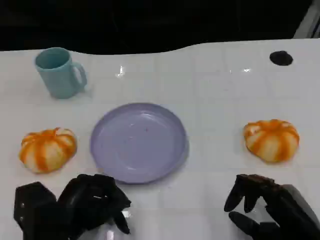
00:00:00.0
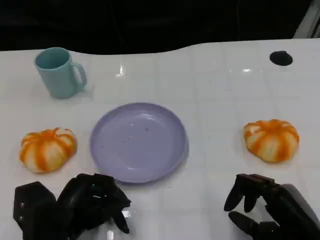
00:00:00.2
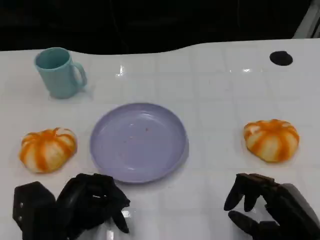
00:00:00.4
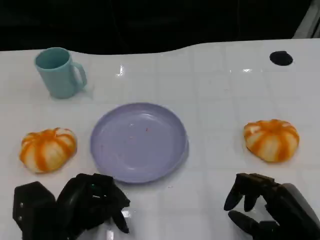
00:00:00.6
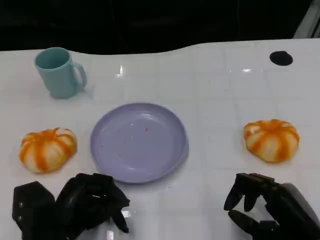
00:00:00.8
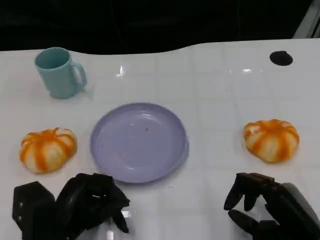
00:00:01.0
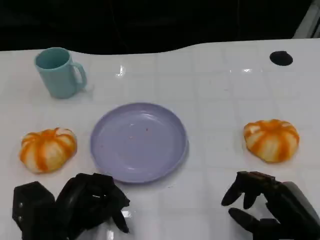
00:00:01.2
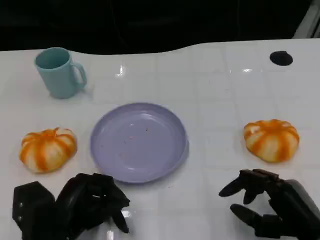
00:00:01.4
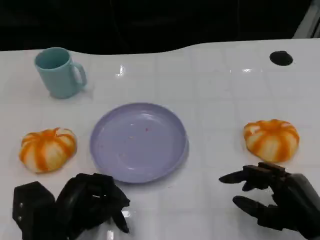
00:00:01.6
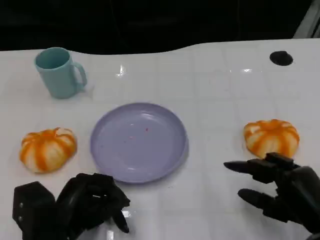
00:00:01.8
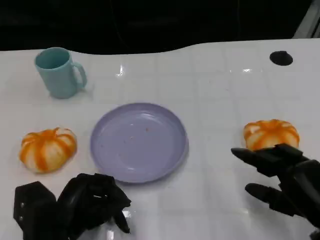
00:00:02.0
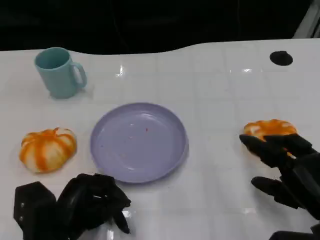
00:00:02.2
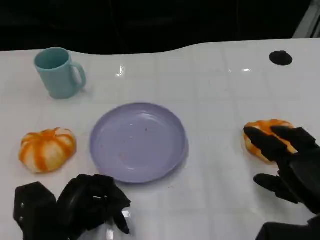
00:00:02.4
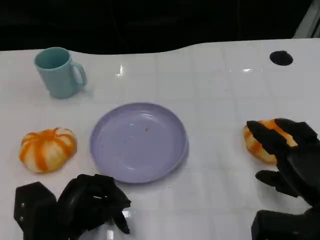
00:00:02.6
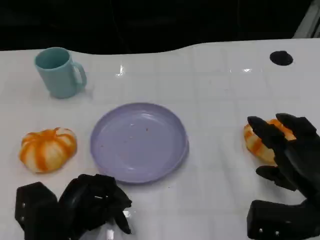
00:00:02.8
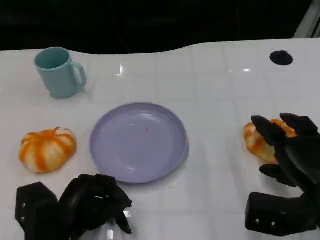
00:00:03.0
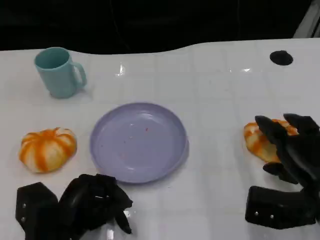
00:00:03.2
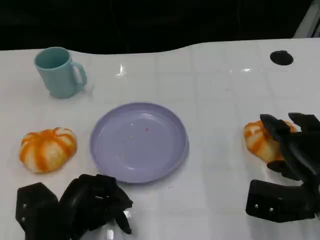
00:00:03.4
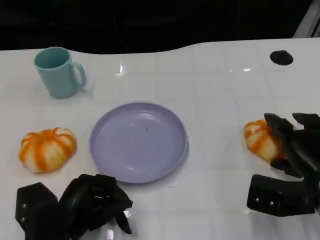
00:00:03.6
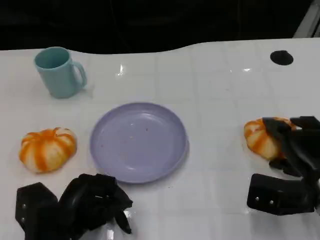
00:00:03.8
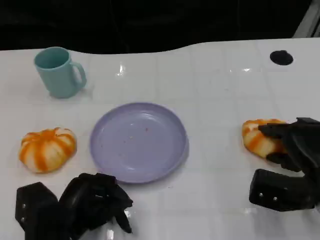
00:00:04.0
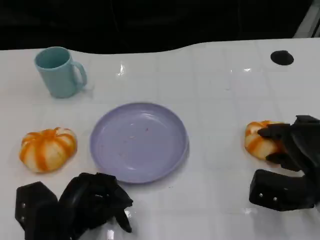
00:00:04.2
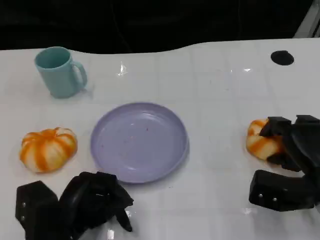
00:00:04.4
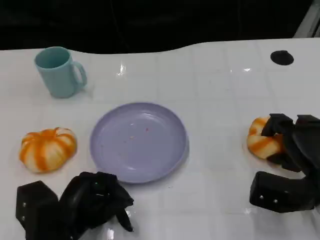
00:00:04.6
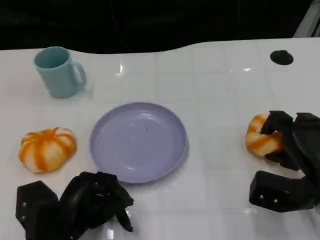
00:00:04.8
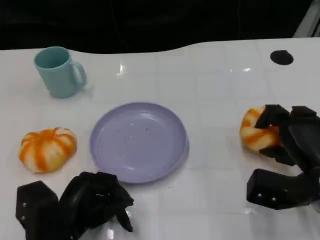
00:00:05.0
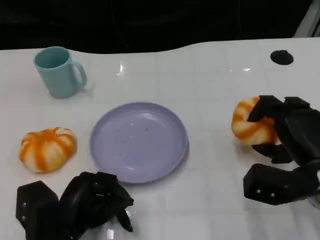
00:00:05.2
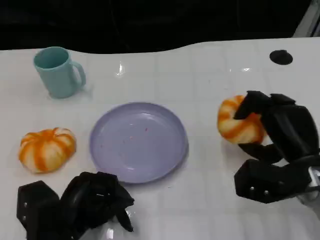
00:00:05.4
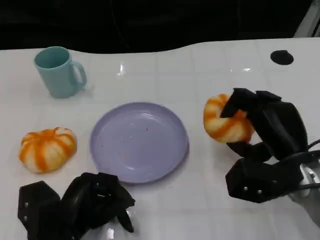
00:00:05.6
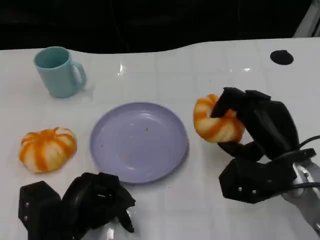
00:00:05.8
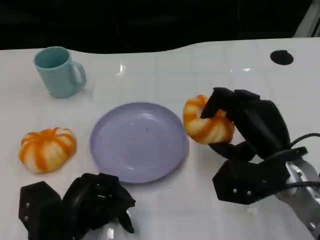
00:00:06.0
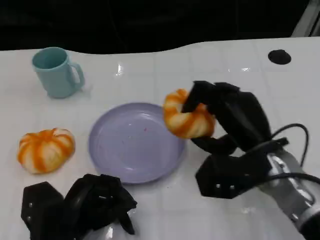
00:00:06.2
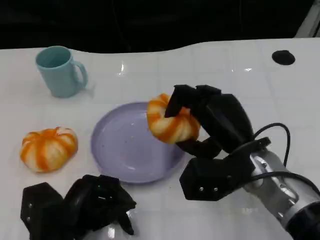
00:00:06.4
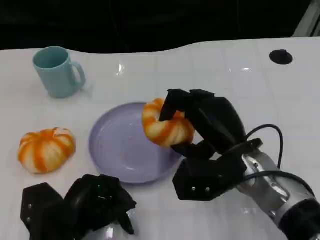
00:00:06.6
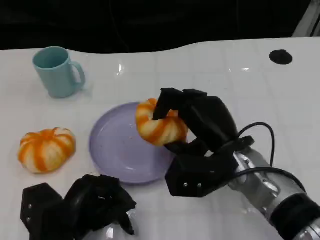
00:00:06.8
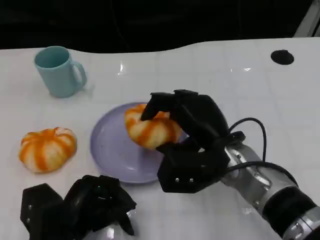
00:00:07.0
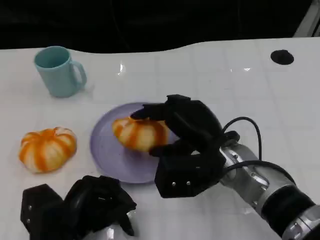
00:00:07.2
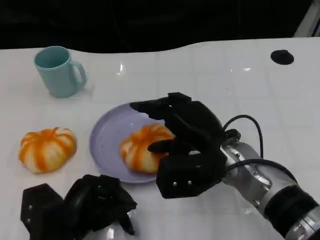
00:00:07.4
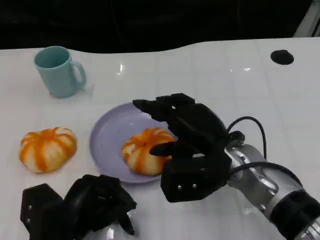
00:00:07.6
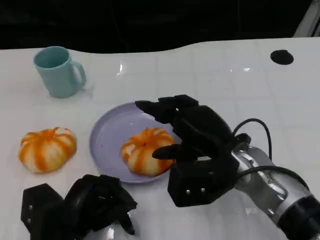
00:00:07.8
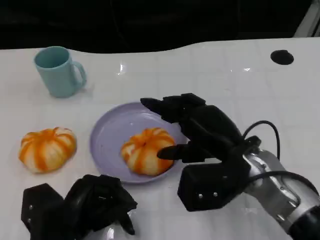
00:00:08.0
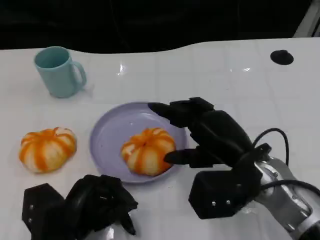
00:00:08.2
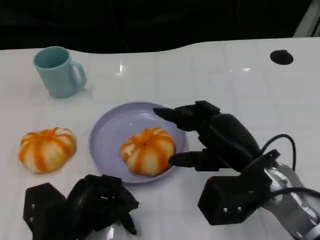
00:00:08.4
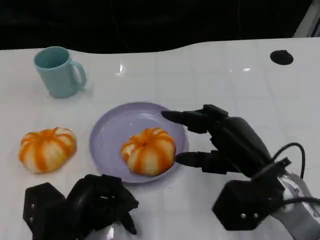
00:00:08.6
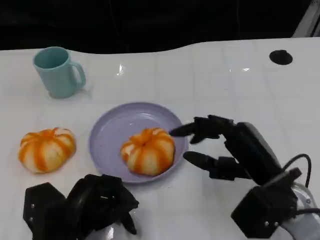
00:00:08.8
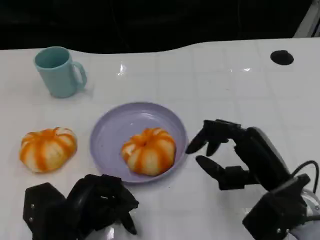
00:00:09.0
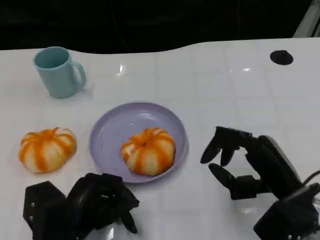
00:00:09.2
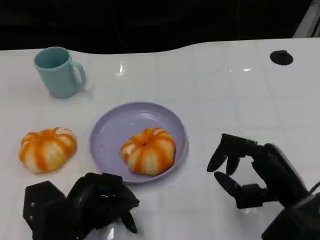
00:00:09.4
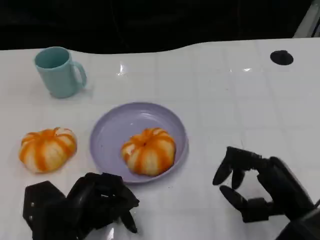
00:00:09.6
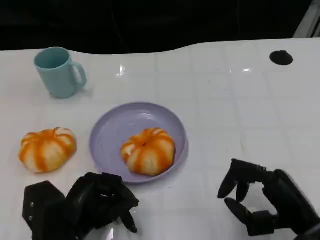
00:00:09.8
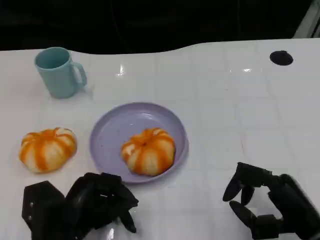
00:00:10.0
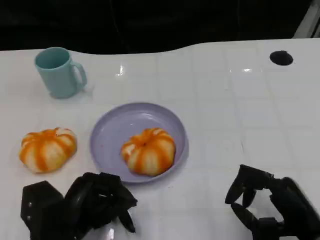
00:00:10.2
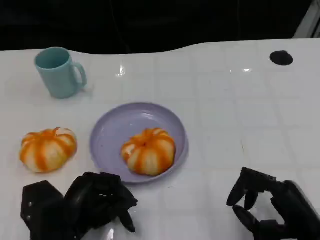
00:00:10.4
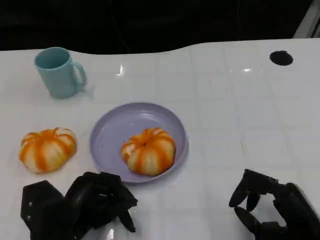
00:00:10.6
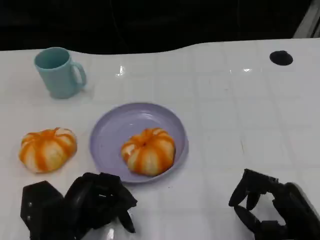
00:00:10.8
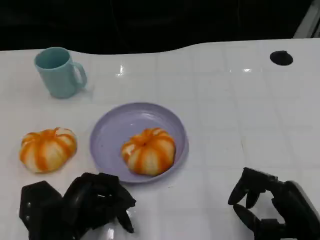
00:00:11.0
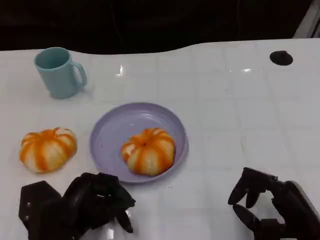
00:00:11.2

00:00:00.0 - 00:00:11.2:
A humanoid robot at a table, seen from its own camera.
Task of the whole recording: Grasp the bread from the table and place it into the plate.
00:00:00.0 - 00:00:01.6: There are only small adjustments of the hands.
00:00:01.6 - 00:00:03.2: The right hand shifts some 5 cm forward.
00:00:03.2 - 00:00:04.8: The hands stay close to where they were, moving slightly.
00:00:04.8 - 00:00:06.4: The right hand is displaced to the left and upward by approximately 15 cm.
00:00:06.4 - 00:00:08.0: The hands move only a little.
00:00:08.0 - 00:00:09.6: The right hand heads to the right, backward and downward, covering some 10 cm.
00:00:09.6 - 00:00:11.2: There are only small adjustments of the hands.

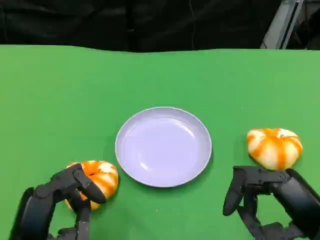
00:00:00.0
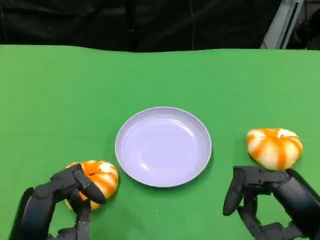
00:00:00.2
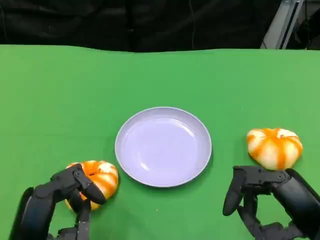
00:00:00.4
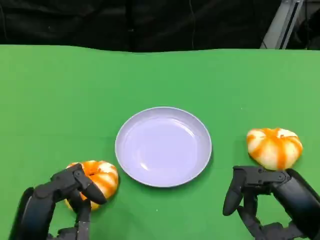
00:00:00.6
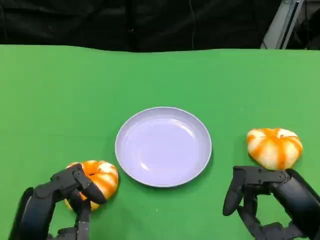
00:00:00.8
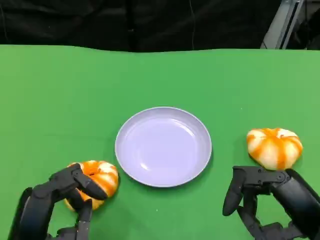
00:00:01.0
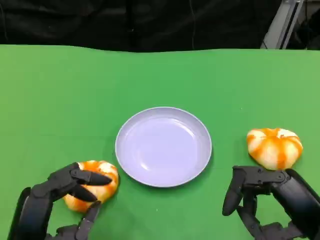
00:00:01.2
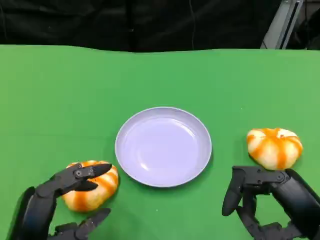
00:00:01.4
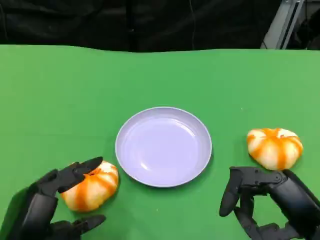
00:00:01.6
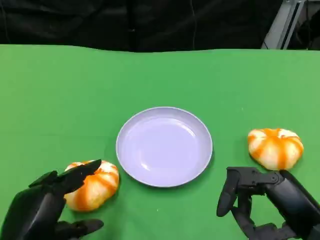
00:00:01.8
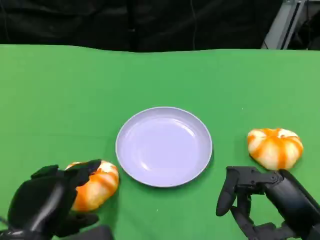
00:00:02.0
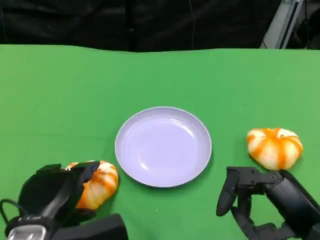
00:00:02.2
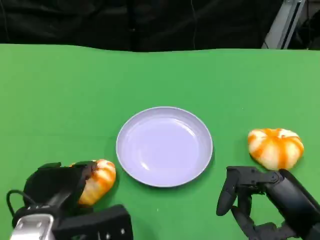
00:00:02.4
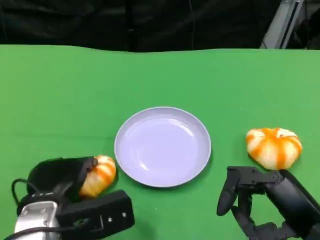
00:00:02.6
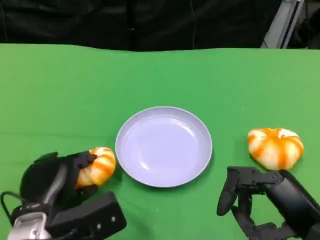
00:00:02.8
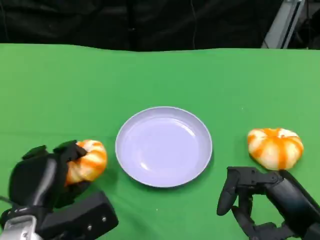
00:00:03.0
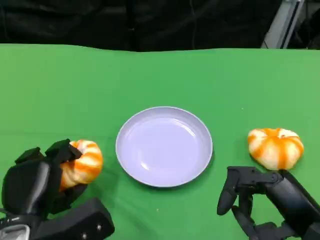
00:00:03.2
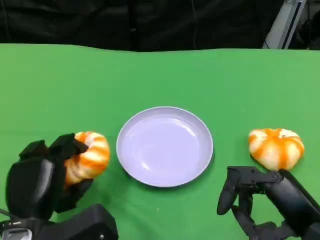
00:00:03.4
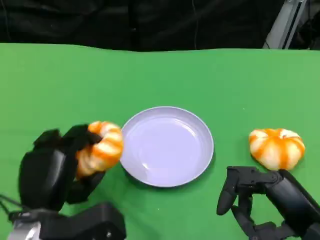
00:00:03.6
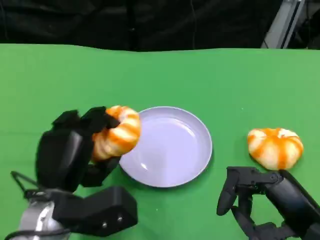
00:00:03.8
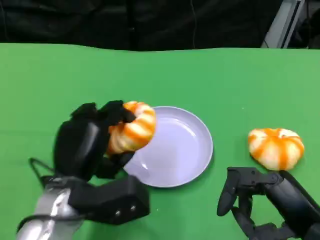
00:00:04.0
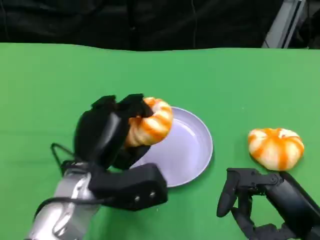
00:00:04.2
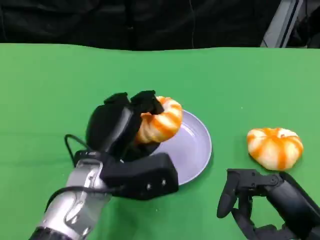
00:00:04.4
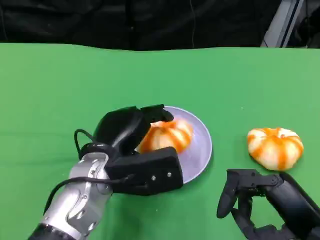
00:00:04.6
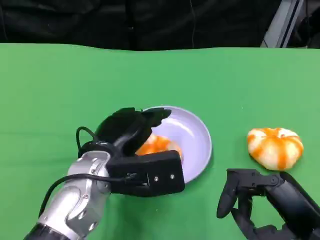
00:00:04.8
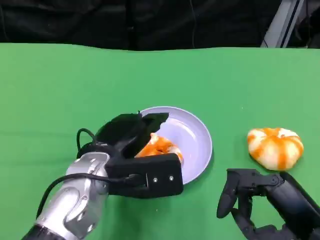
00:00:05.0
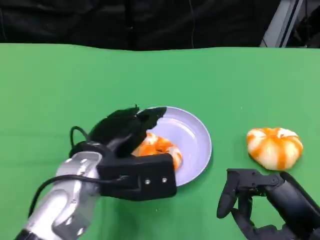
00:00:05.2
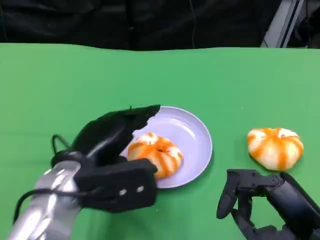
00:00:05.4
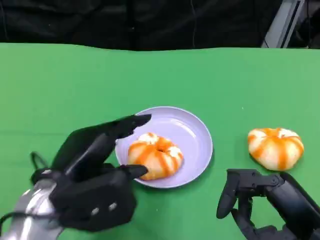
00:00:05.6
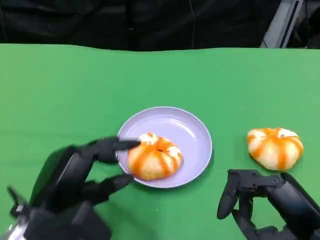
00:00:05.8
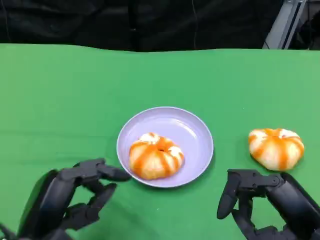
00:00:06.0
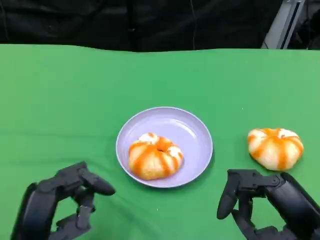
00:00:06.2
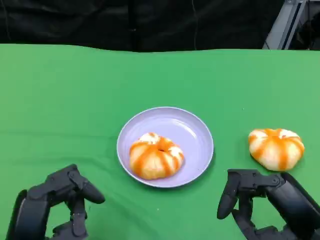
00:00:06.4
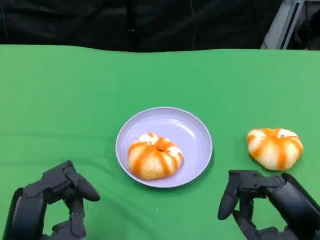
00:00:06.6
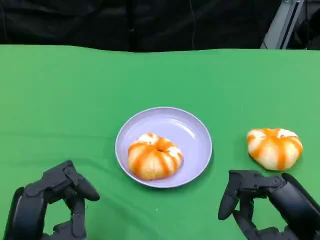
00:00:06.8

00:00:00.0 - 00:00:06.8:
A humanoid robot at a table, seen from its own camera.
Task of the whole recording: Grasp the bread from the table and place it into the plate.
00:00:00.0 - 00:00:01.4: There are only small adjustments of the hands.
00:00:01.4 - 00:00:02.8: The left hand shifts approximately 10 cm forward.
00:00:02.8 - 00:00:04.0: The left hand shifts by roughly 5 cm.
00:00:05.4 - 00:00:06.8: The left hand goes some 10 cm backward and to the left.

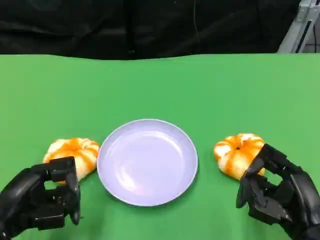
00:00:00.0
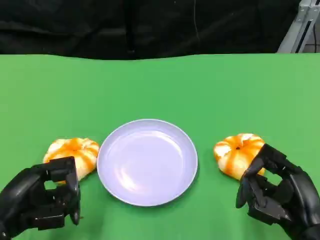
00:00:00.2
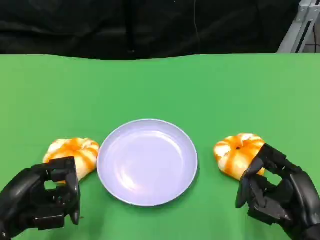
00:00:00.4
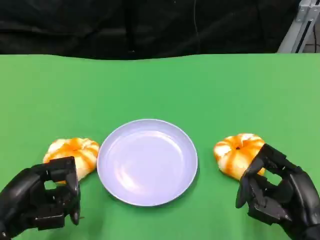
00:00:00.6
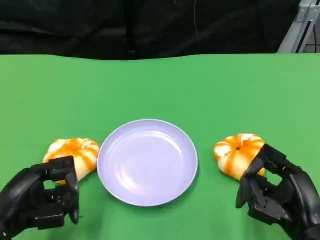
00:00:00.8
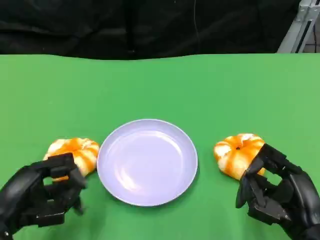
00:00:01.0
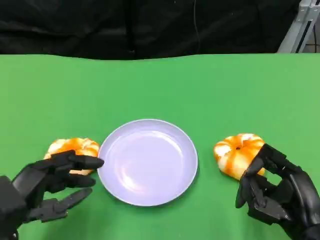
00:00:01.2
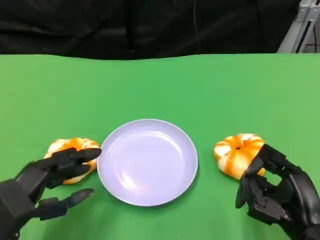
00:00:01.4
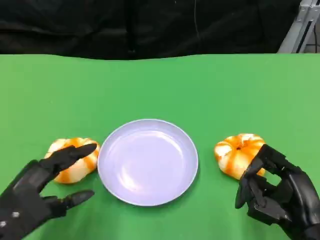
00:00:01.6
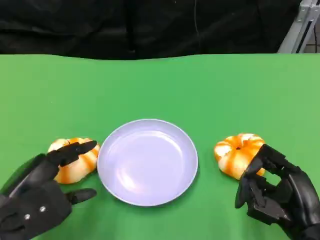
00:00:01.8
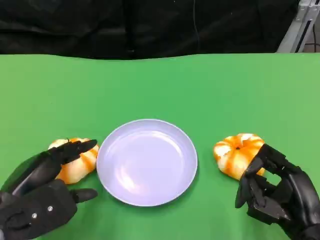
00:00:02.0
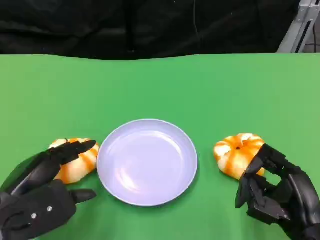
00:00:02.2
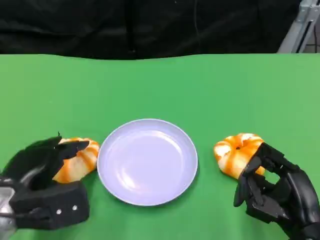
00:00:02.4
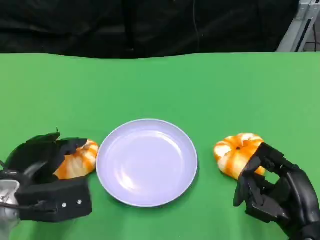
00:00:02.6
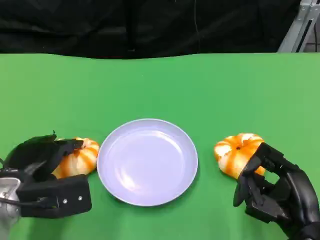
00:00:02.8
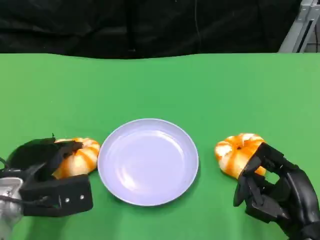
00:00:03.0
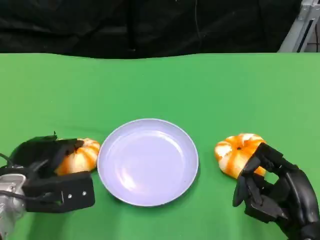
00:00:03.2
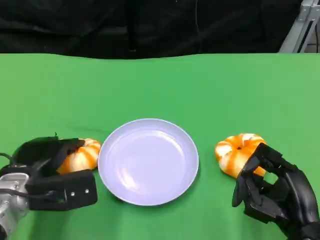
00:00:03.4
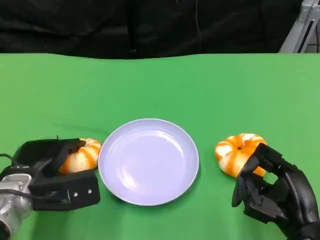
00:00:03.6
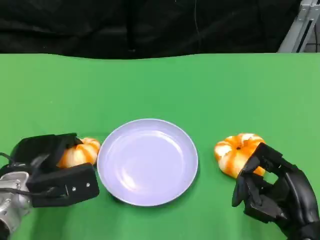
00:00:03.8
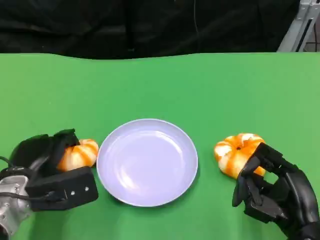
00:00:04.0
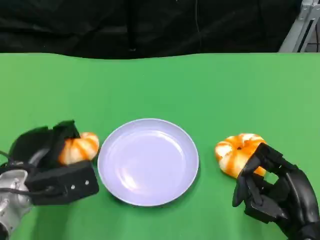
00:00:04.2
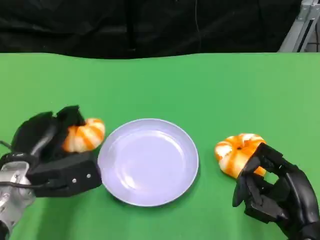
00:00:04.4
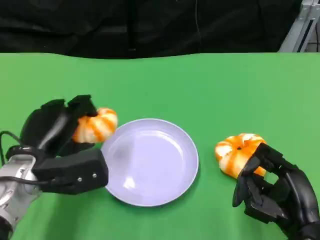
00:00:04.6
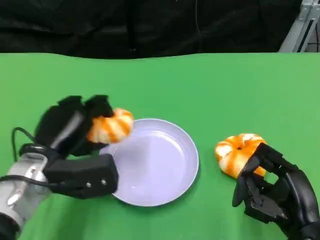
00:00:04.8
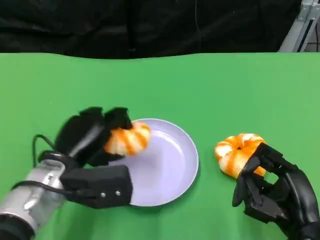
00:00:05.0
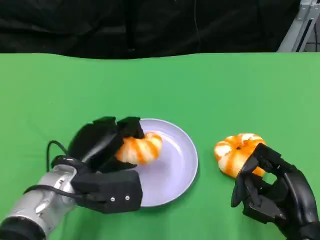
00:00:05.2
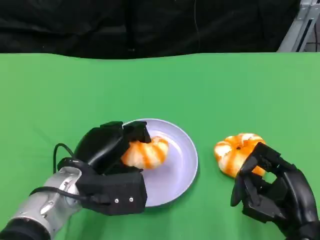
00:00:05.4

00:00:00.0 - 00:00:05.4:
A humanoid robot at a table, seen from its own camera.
Task of the whole recording: Grasp the bread from the table and place it into the plate.
00:00:01.4 - 00:00:02.8: The left hand heads forward, covering approximately 5 cm.
00:00:02.8 - 00:00:04.0: There are only small adjustments of the hands.
00:00:04.0 - 00:00:05.4: The left hand travels to the right by about 10 cm.
